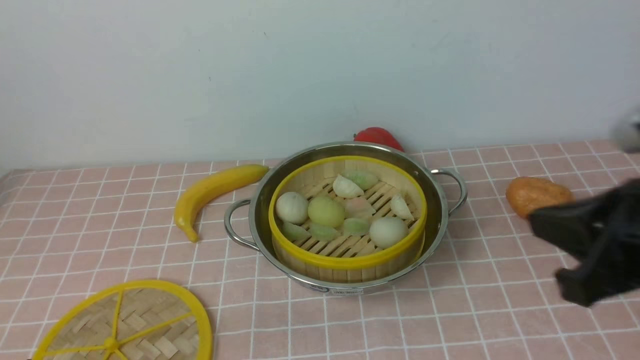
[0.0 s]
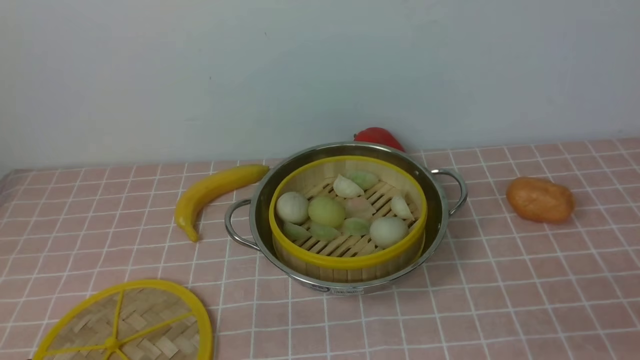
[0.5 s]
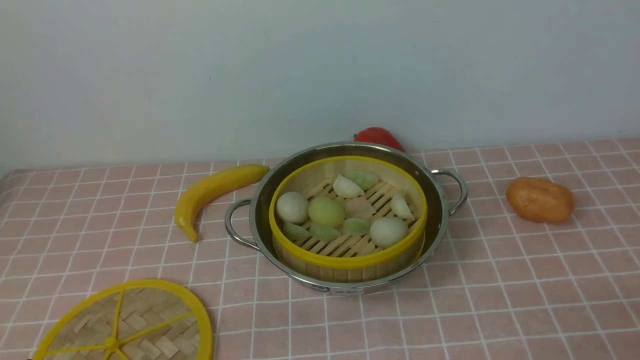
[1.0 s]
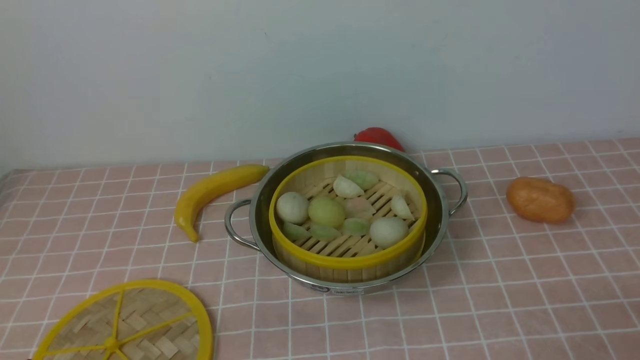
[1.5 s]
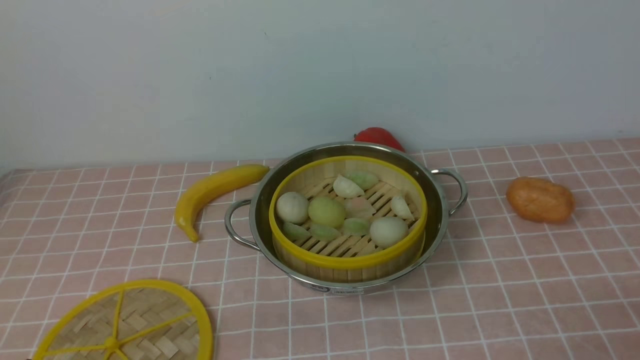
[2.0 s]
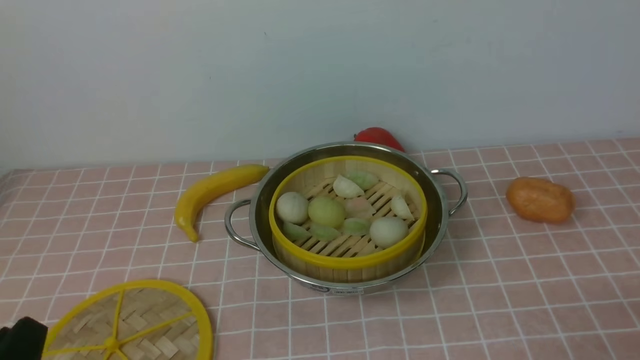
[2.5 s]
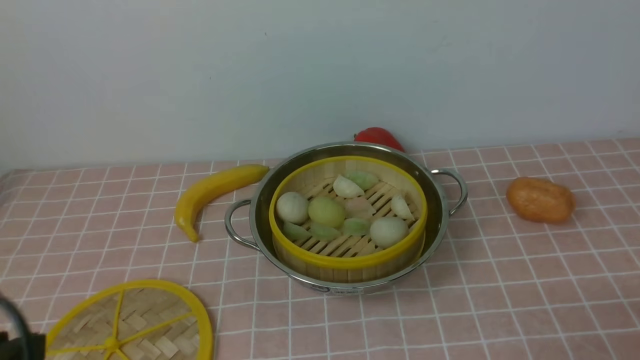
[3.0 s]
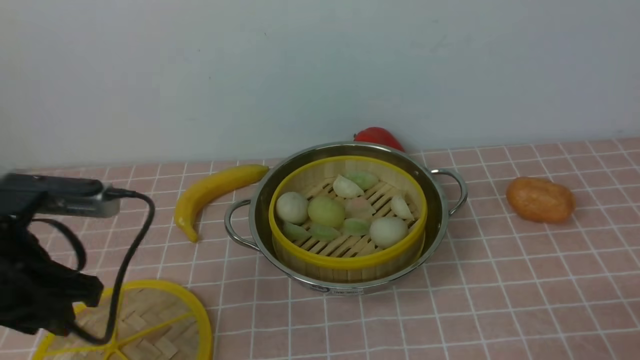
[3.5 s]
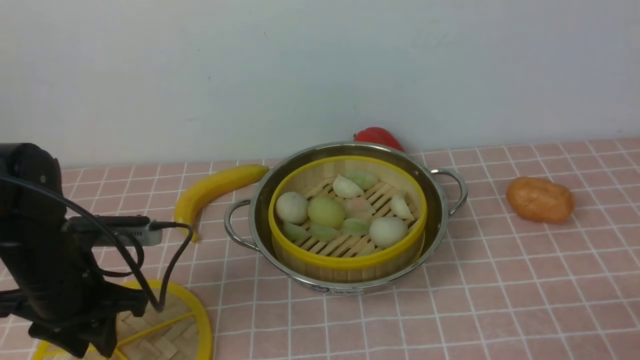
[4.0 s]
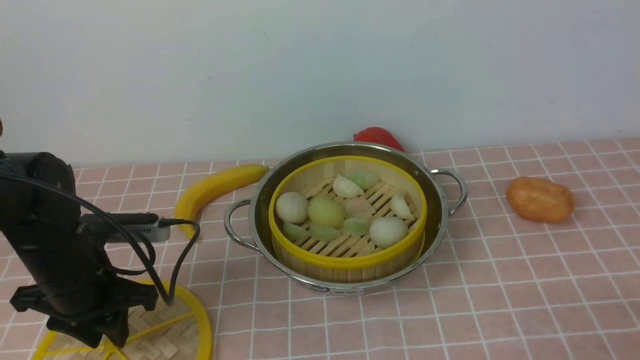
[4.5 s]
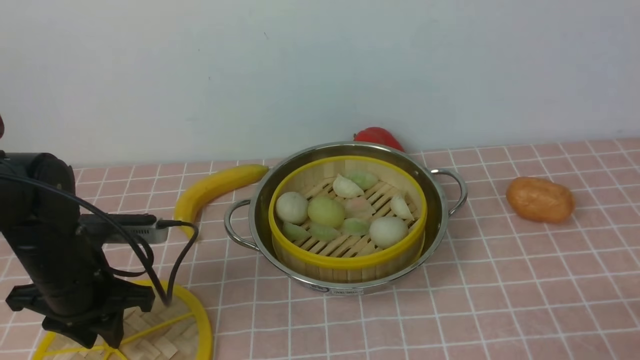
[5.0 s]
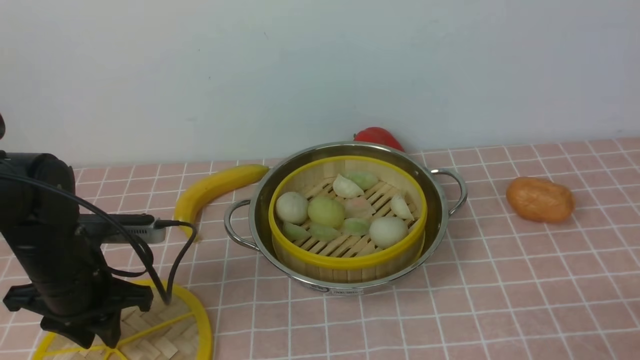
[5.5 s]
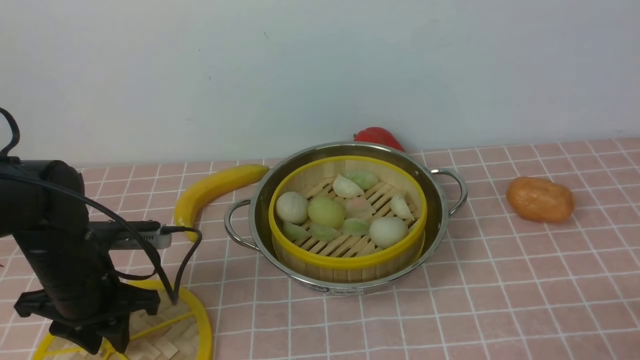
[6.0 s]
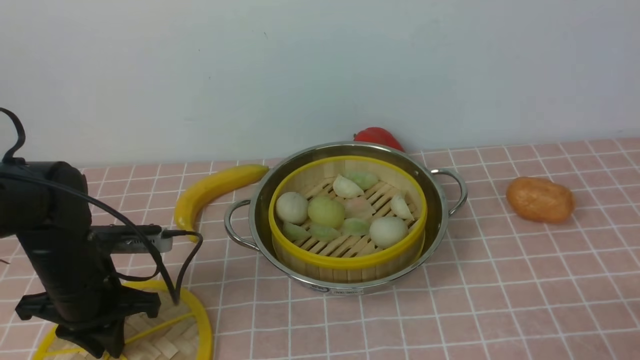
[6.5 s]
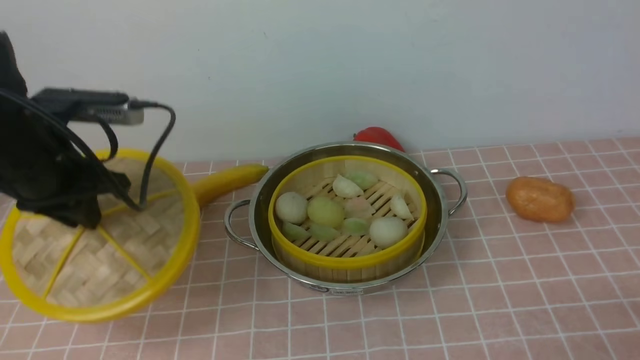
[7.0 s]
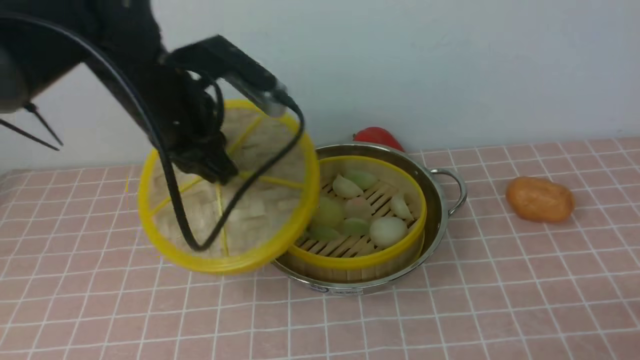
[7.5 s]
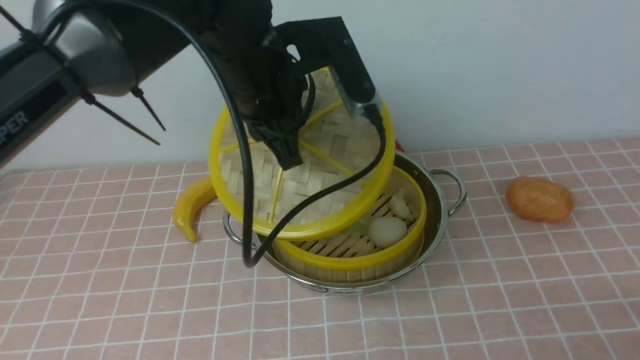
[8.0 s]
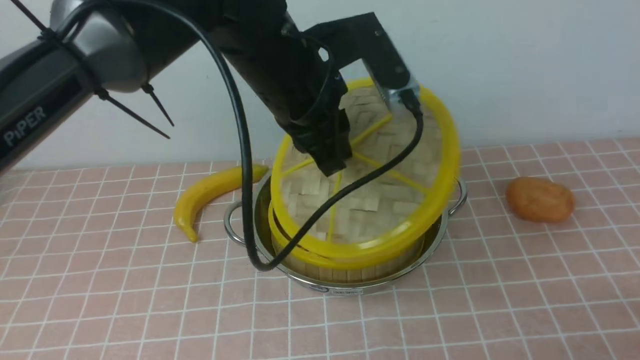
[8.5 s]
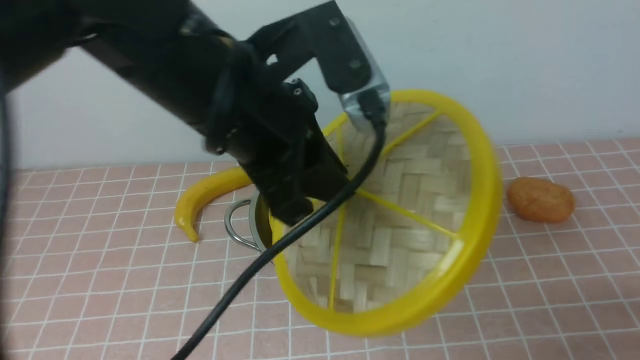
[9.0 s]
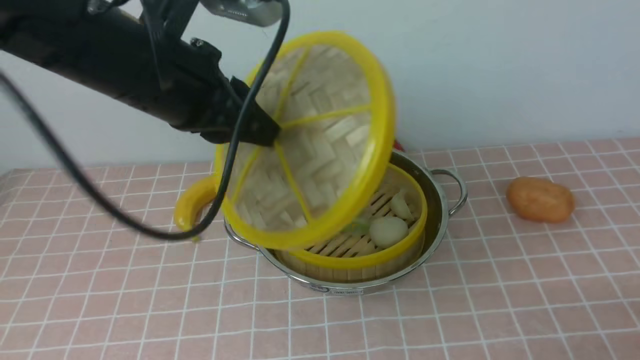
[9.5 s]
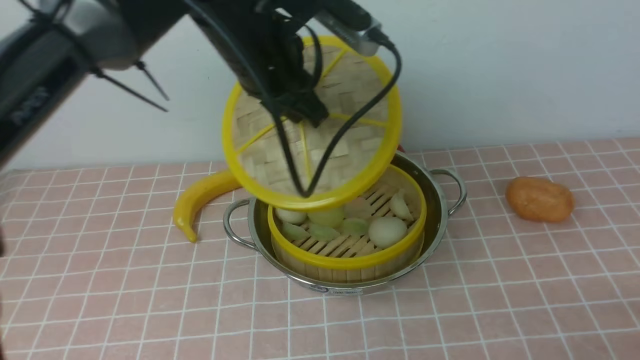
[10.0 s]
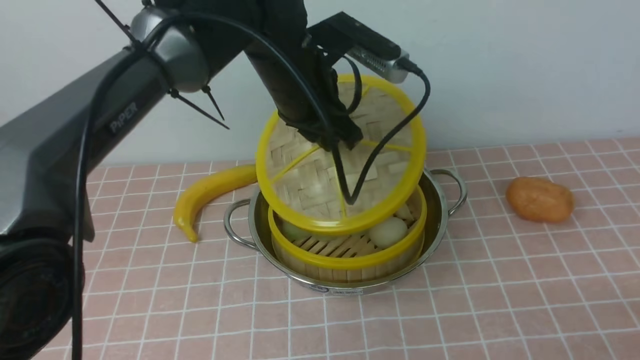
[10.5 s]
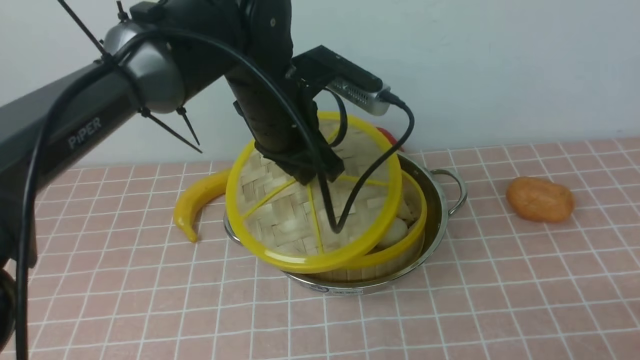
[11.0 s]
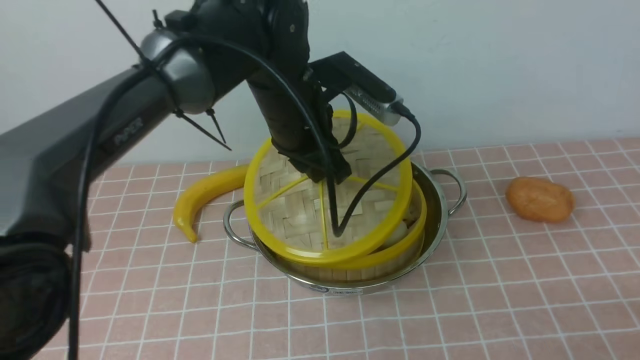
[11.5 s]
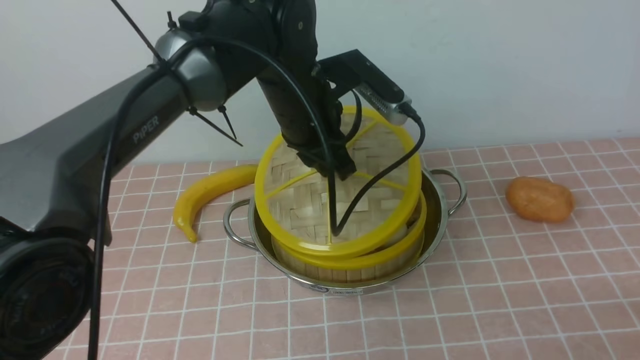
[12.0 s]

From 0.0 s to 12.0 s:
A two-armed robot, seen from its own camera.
Task of the whole recording: place the steamer in the pot on the pink tablecloth, and put the lid on the steamer.
Step, from 0.0 s to 6.5 s: use the left arm to lift the lid of the steamer.
From 0.0 s to 2.0 s: The right gripper is displaced downward, backward and to the right by approximately 20 cm, and opens its fingers.
From 2.0 s to 4.0 s: The left gripper shifts some 20 cm forward.
From 4.0 s to 6.0 s: The grippers move only a little.
From 6.0 s to 8.0 s: The left gripper travels to the right and upward by roughly 25 cm, and closes.
From 8.0 s to 10.0 s: The left gripper travels backward and back again, roughly 10 cm each way.
From 10.0 s to 12.0 s: The left gripper heads downward, covering some 5 cm.

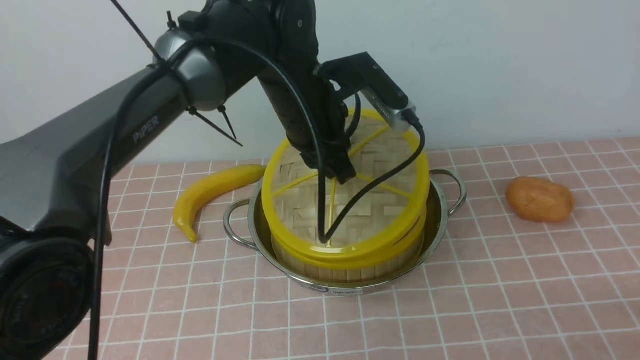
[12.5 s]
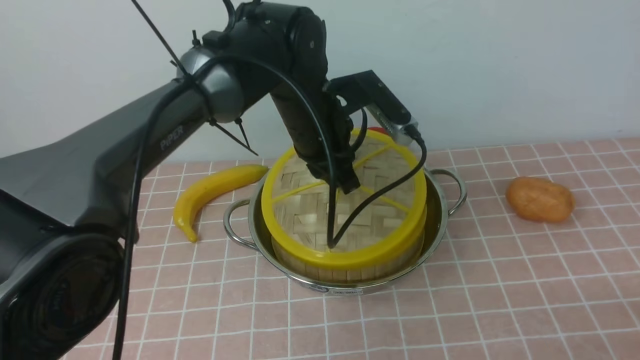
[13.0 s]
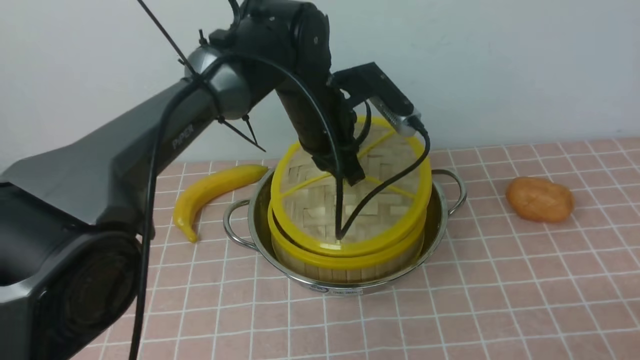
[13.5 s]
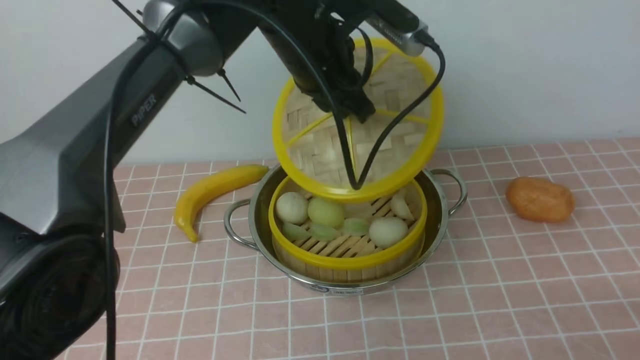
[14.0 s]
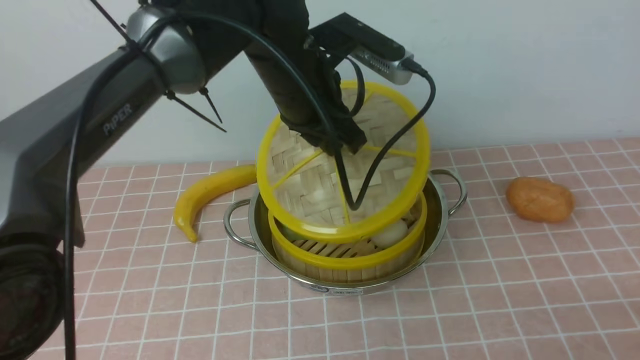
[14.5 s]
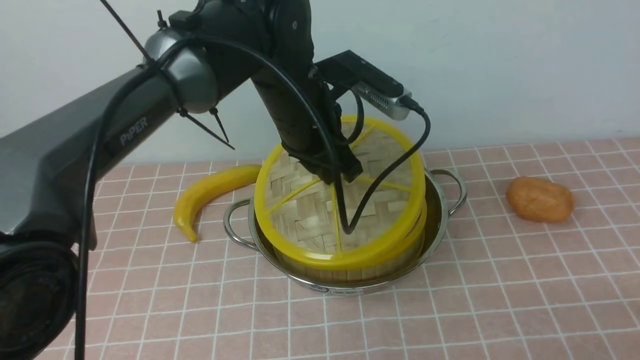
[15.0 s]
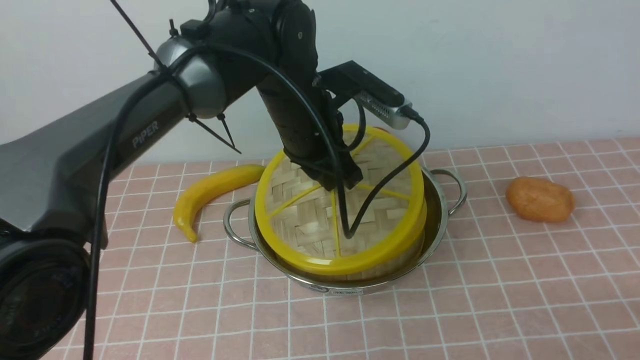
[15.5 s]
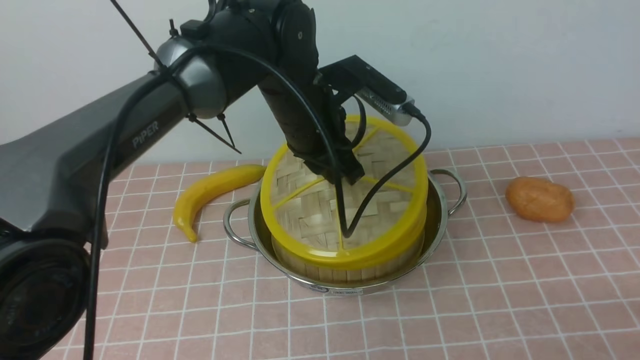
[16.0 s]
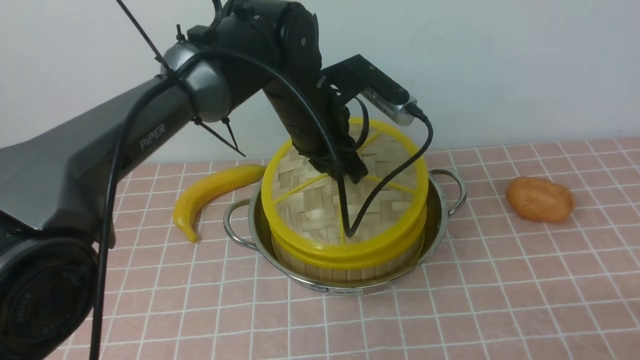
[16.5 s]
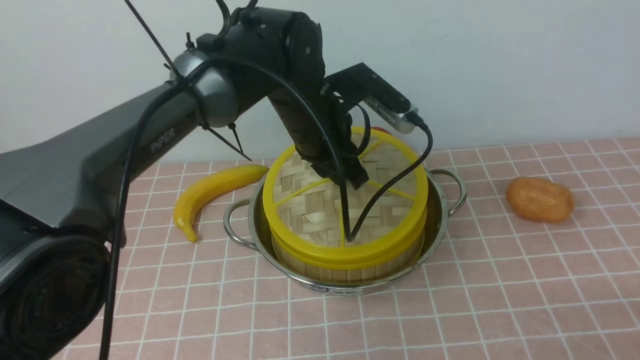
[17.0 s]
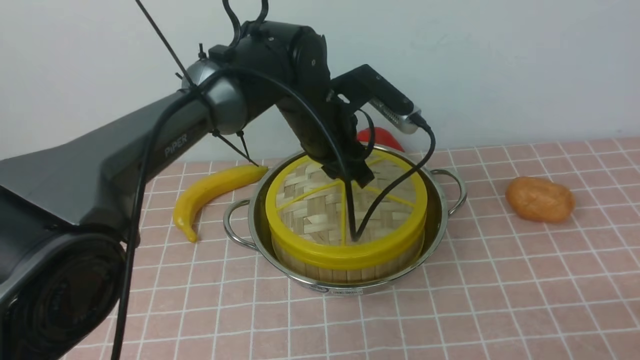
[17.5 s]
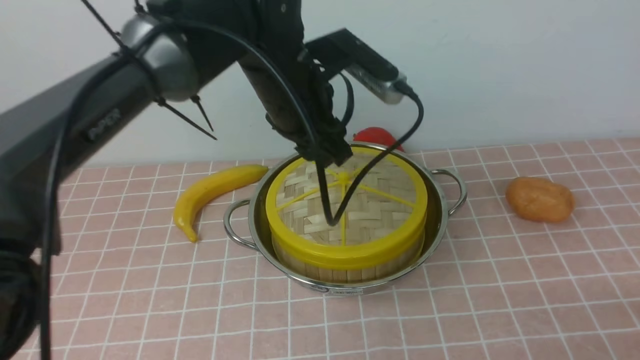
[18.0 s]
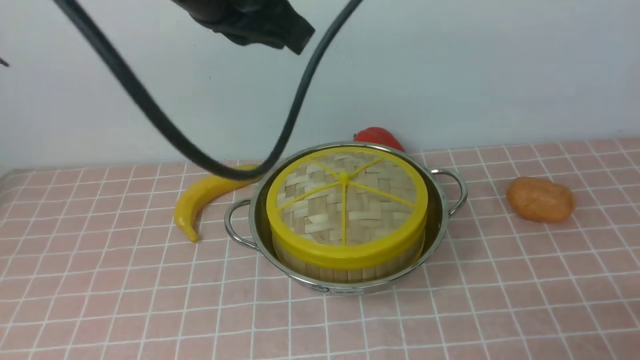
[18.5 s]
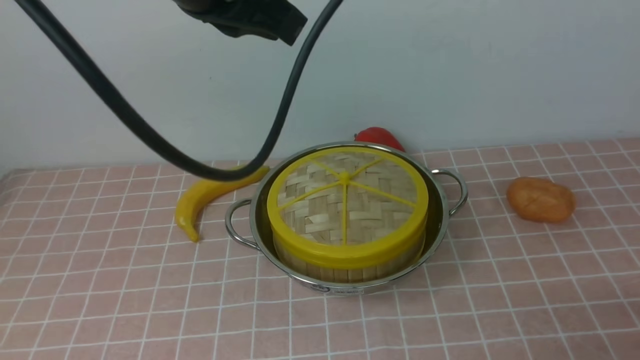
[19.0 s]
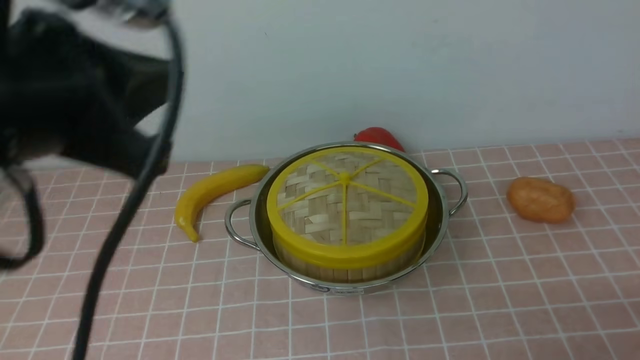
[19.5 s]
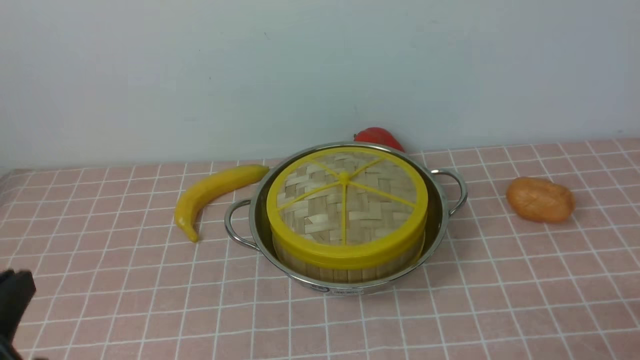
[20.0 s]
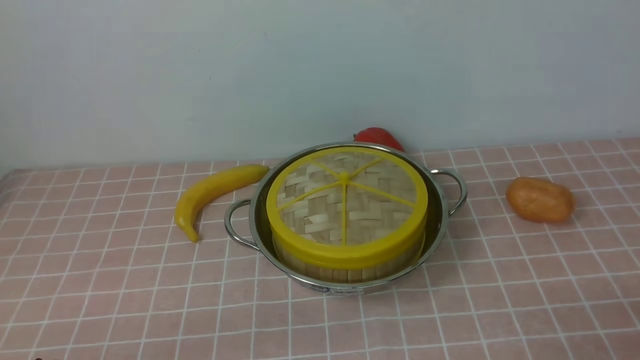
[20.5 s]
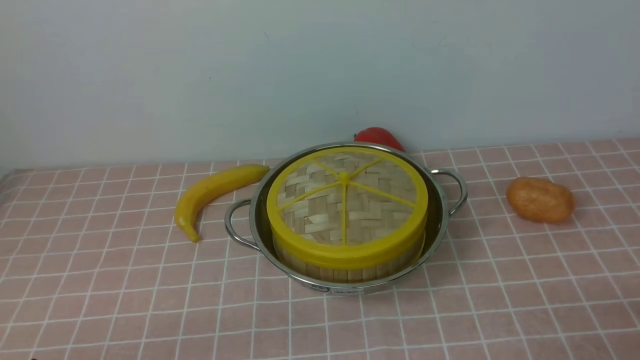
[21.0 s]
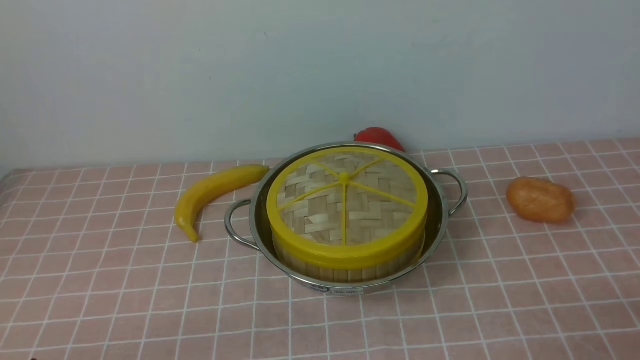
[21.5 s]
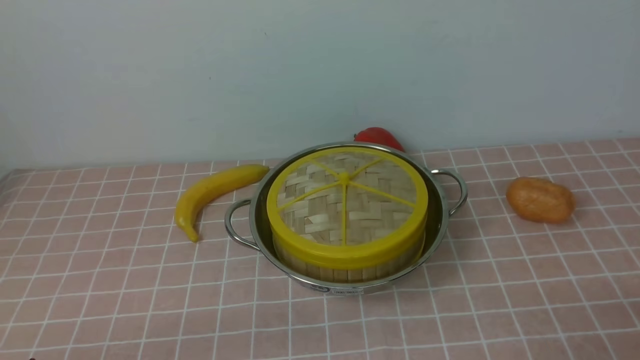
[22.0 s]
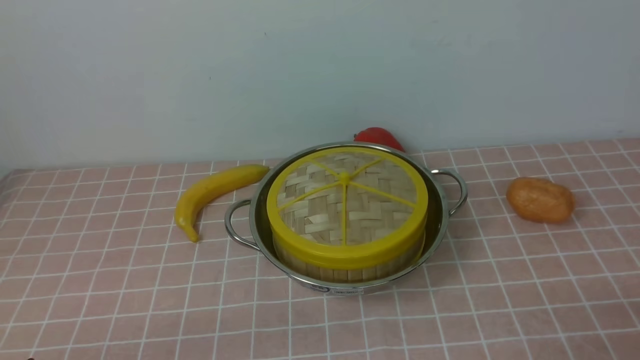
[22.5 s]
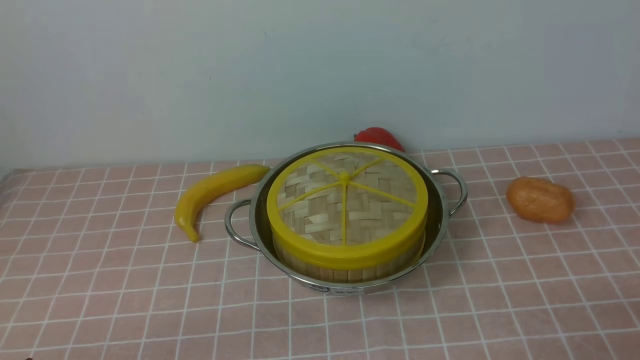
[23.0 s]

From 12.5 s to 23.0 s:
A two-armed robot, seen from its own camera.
Task of the whole recording: place the steamer in the pot on the pink tablecloth, and put the lid on the steamer.
Step, from 12.5 s to 17.5 s: use the left arm to place the steamer lid on the steamer.
From 16.5 s to 19.0 s: The left gripper moves upward and backward, approximately 25 cm, and closes.
From 19.0 s to 21.0 s: The left gripper goes about 40 cm downward, backward and to the left.
From 21.0 s to 23.0 s: Neither gripper changes place.
